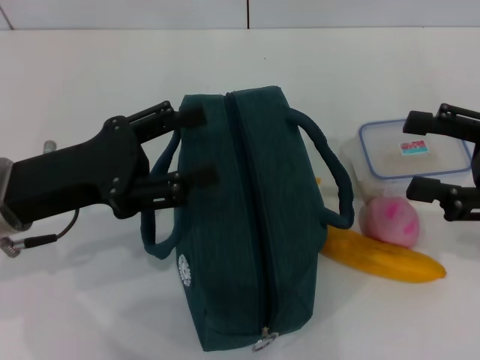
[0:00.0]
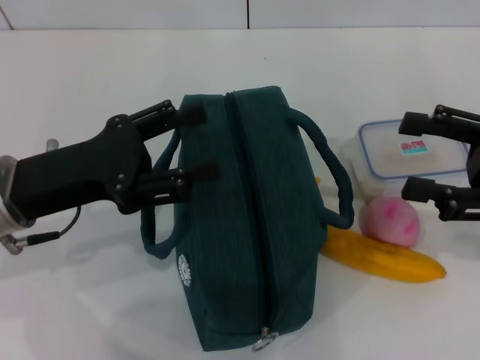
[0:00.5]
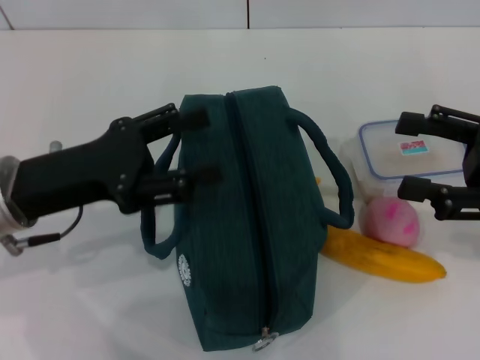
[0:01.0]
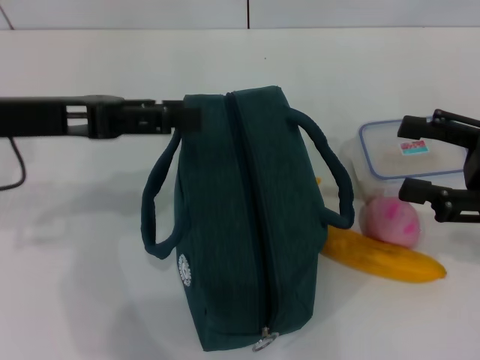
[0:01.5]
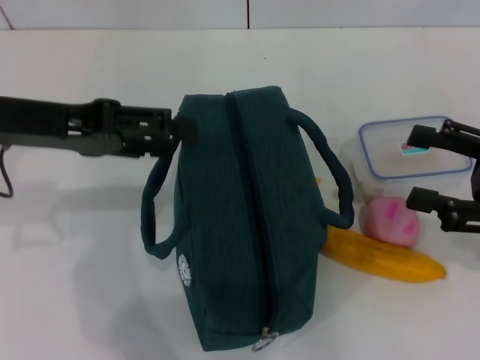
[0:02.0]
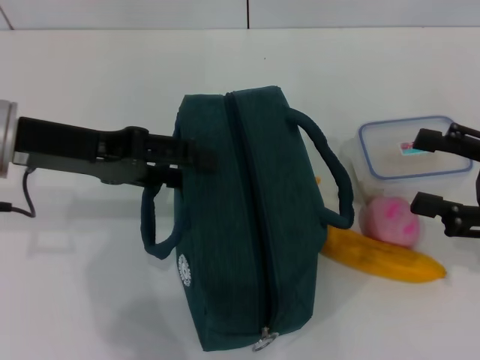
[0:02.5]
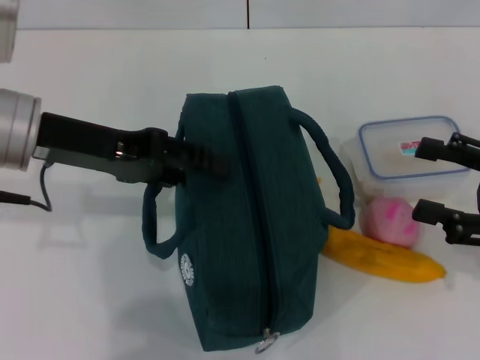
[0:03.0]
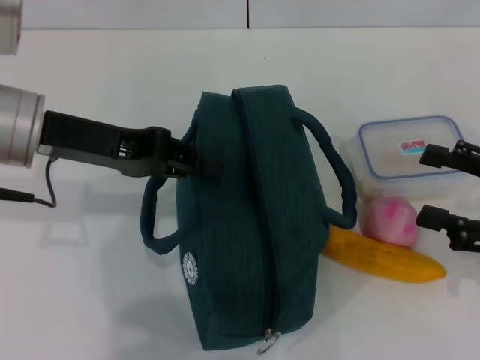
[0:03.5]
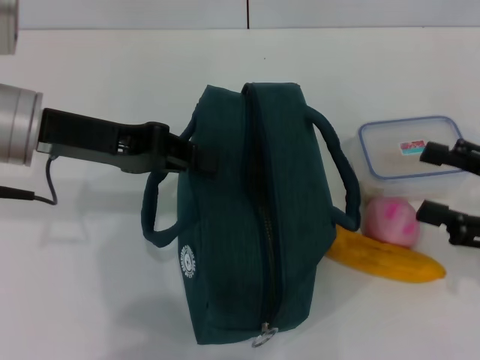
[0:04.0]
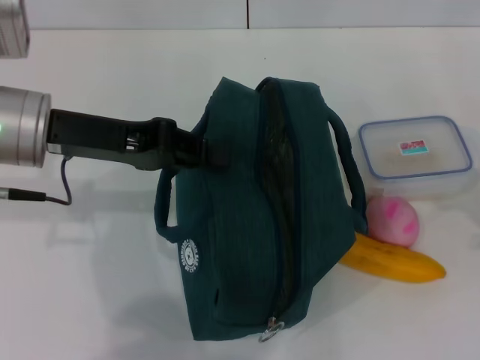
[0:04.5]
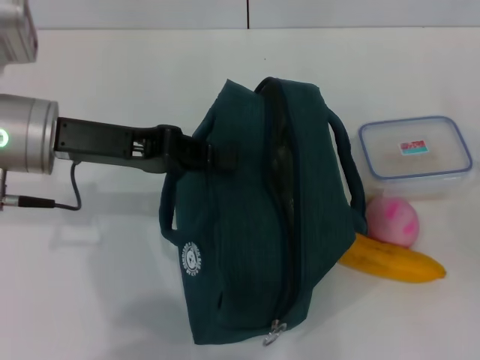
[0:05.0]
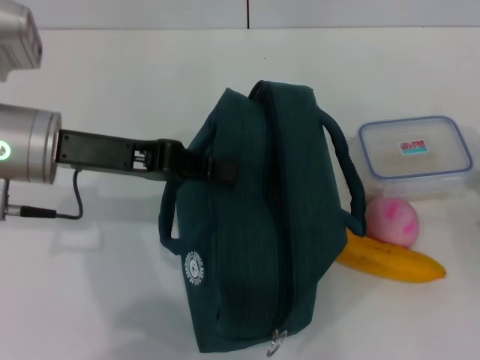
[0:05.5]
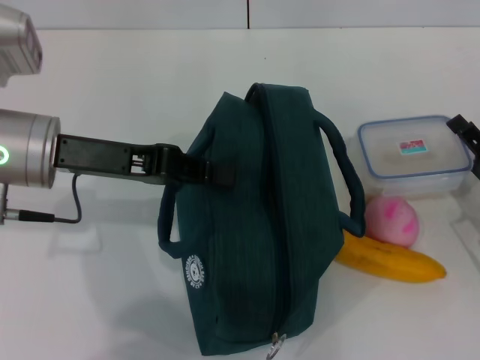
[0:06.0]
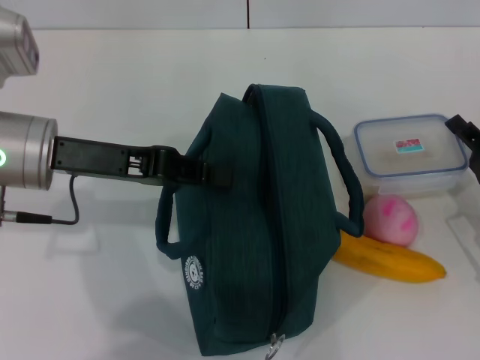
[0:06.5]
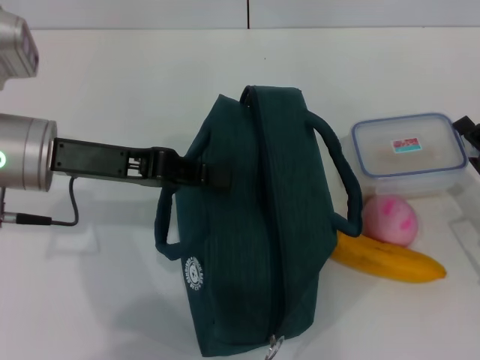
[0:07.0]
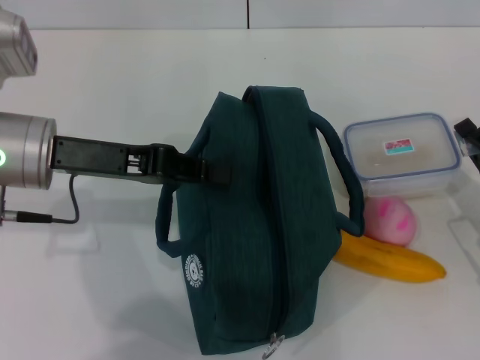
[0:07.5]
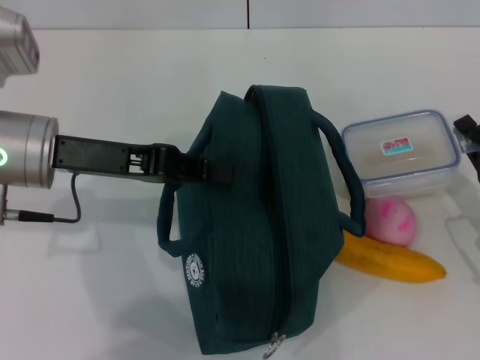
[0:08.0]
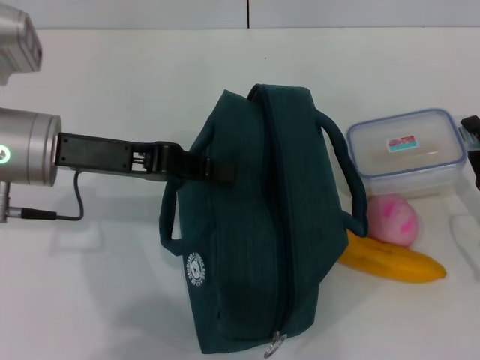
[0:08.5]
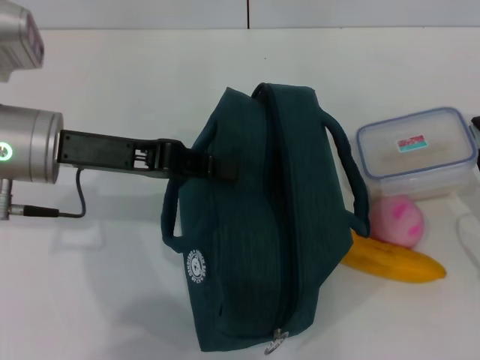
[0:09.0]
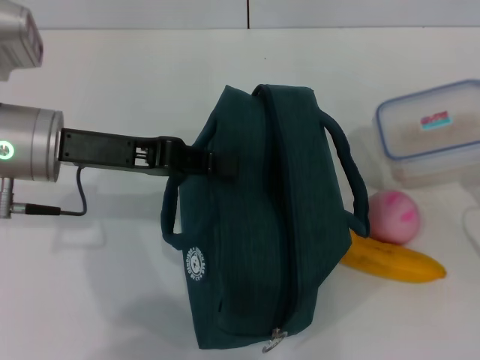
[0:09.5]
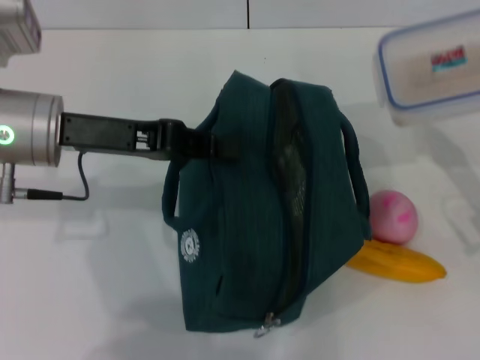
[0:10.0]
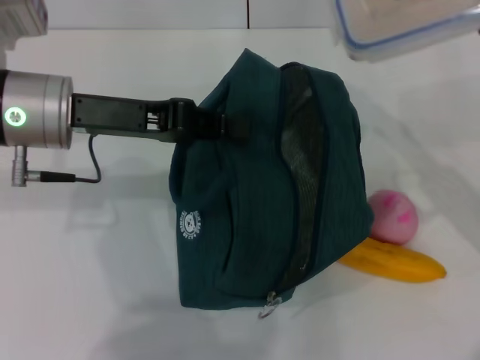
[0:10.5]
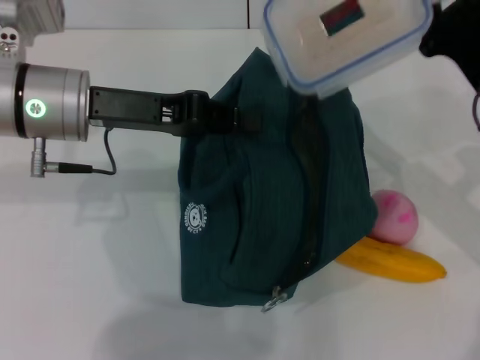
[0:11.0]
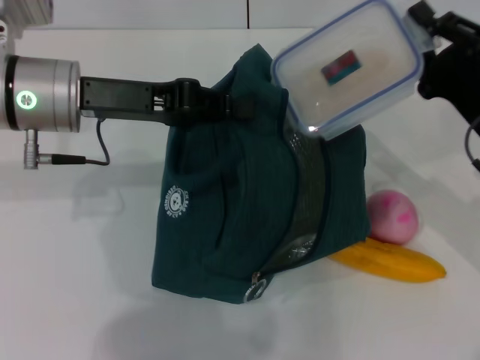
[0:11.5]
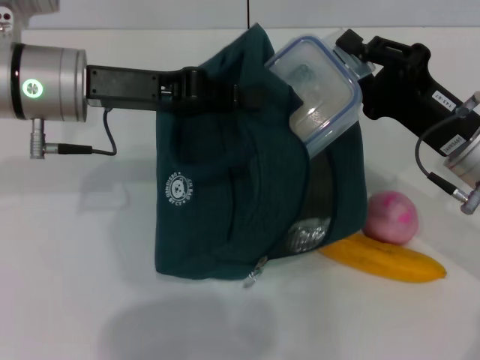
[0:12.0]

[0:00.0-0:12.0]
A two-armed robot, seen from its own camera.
Step, 0:00.0 to 0:03.5: Hold the lunch bag with your left hand.
Step, 0:04.0 to 0:08.5: Pick up the lunch box with your right hand.
0:00.0 to 0:02.0: The left gripper goes roughly 10 cm upward.
0:02.0 to 0:04.0: The left gripper closes.
0:04.0 to 0:06.0: The right gripper goes roughly 10 cm downward.
0:06.0 to 0:08.0: The right gripper closes.
0:08.0 to 0:10.0: The right gripper shifts approximately 5 cm upward.
0:10.0 to 0:12.0: The right gripper shifts roughly 10 cm to the left.

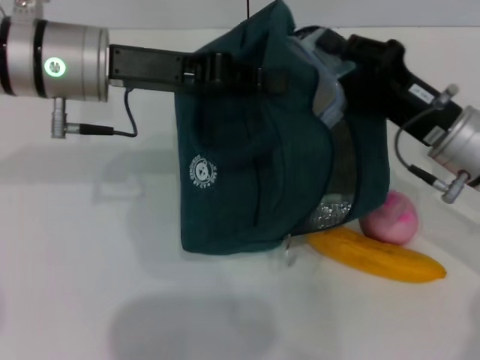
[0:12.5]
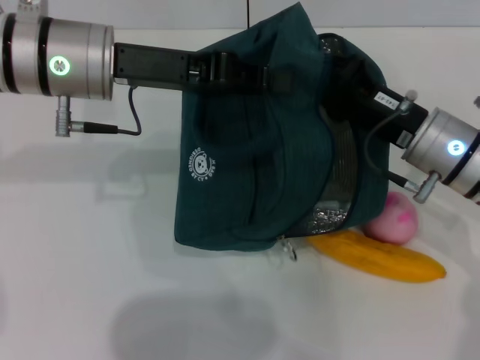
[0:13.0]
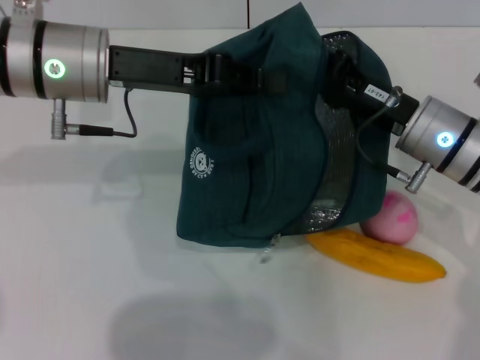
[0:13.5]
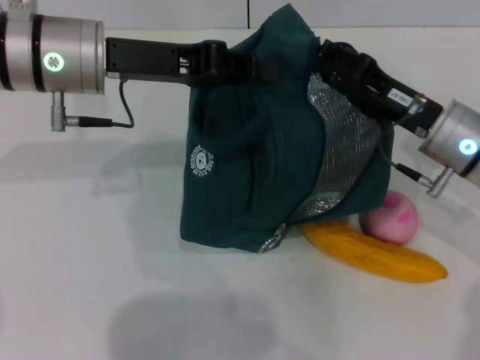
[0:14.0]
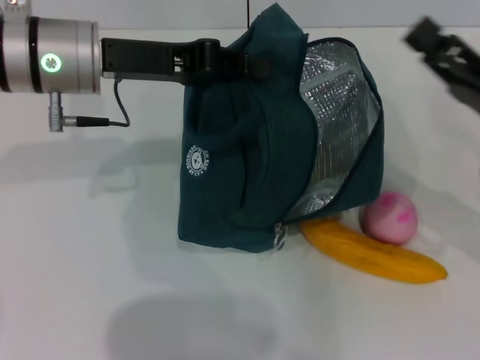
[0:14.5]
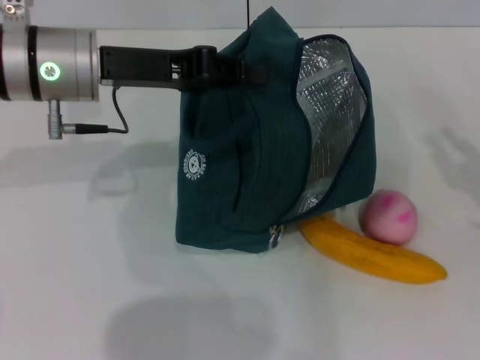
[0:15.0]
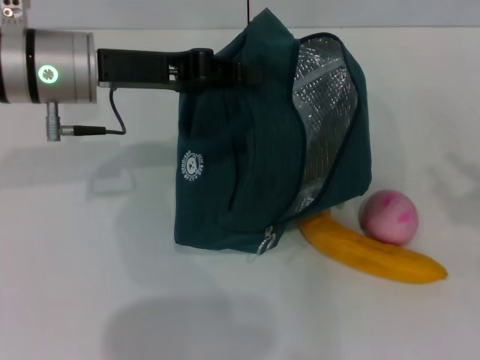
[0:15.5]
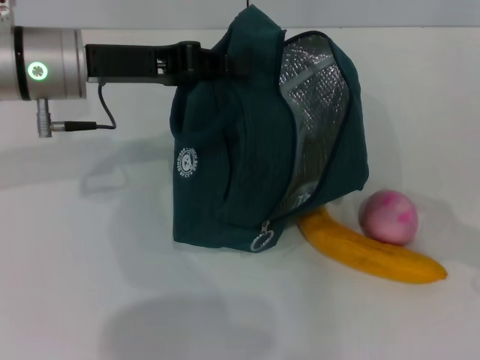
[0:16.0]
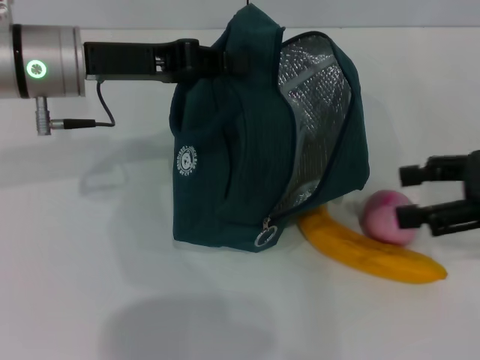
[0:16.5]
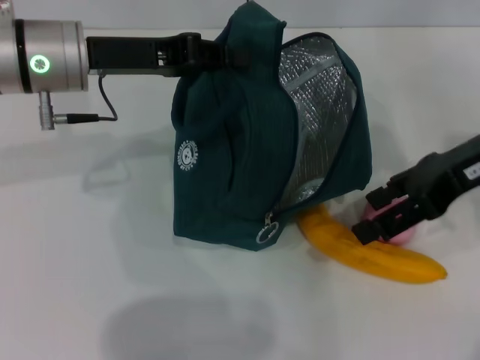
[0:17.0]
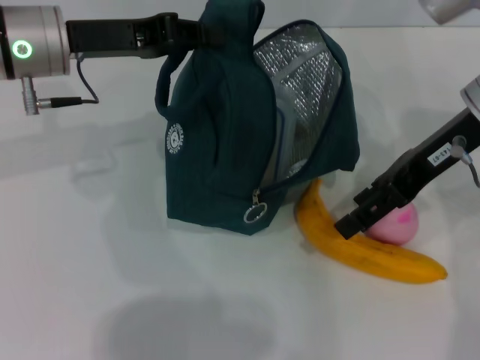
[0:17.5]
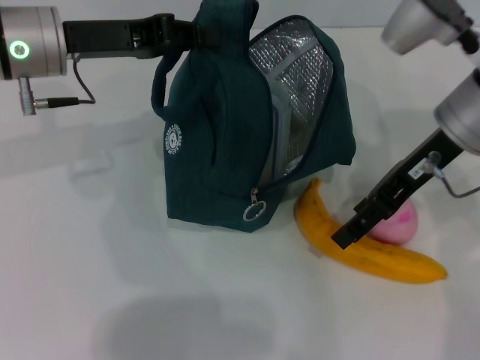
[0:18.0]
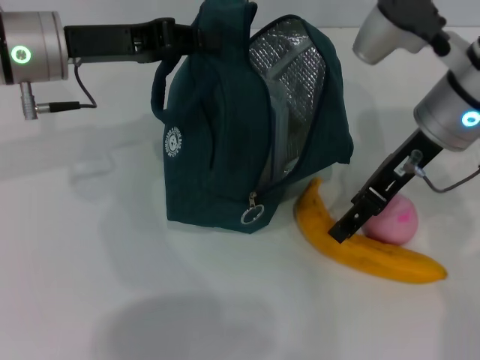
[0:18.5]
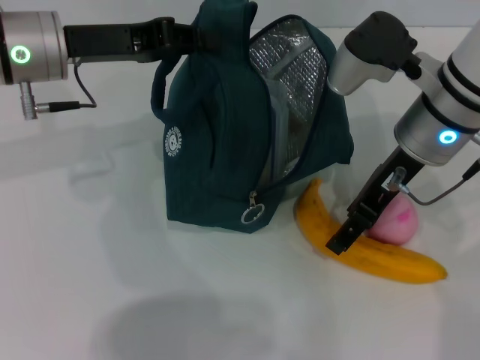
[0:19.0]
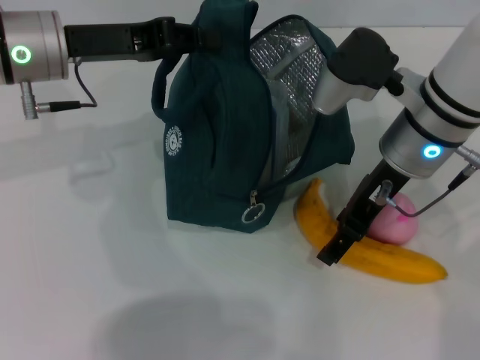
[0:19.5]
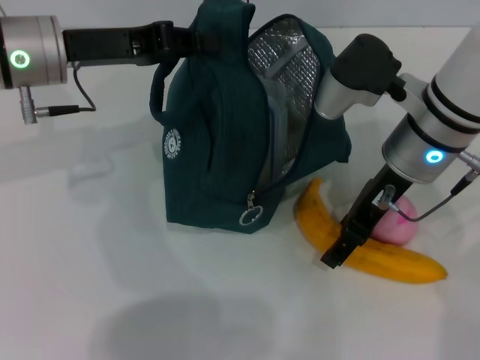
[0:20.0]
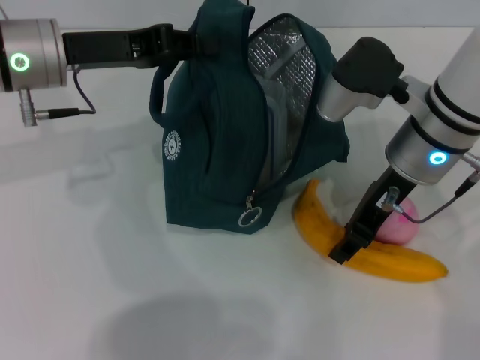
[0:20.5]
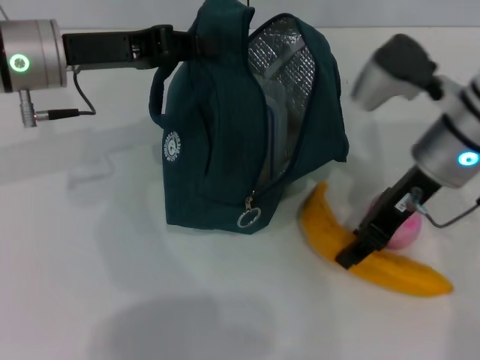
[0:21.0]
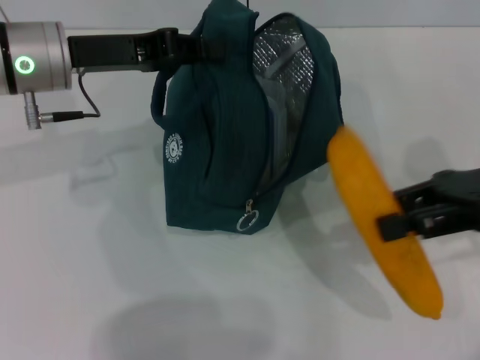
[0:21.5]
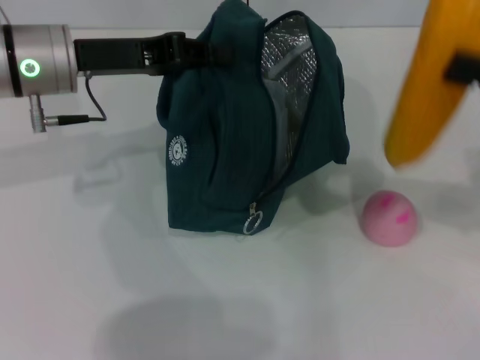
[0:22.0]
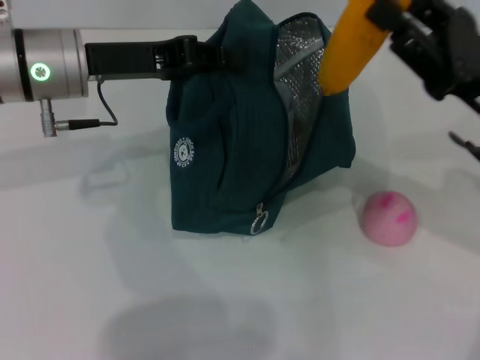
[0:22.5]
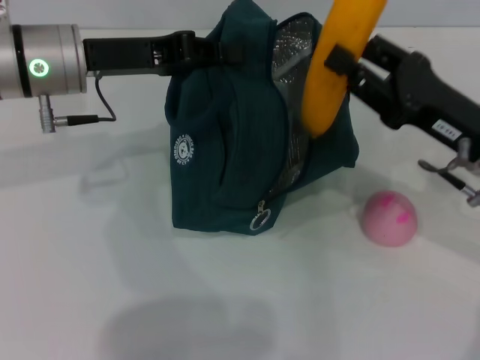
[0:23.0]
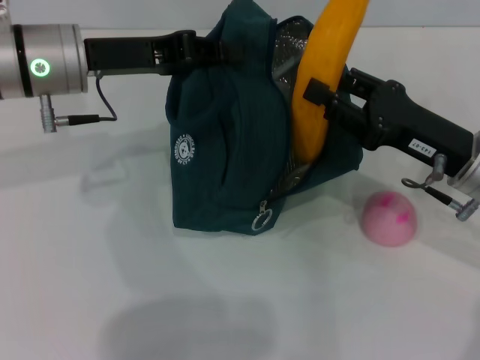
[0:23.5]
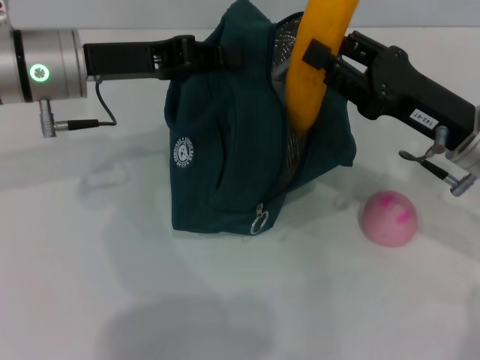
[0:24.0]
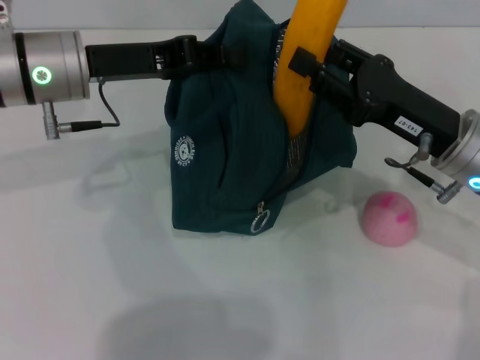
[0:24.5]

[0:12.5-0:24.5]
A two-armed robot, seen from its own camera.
Step, 0:14.0 to 0:20.5: Take the banana with your right hand.
0:12.5 to 0:14.5: The right gripper travels to the right by approximately 5 cm, and opens its fingers.
0:14.5 to 0:16.5: The right gripper shifts approximately 10 cm upward.
0:16.5 to 0:18.5: The right gripper is displaced to the left and forward by about 15 cm.
0:18.5 to 0:20.5: The grippers stay close to where they were, moving slightly.
0:20.5 to 0:22.5: The right gripper is displaced to the right and backward by approximately 10 cm.
0:22.5 to 0:24.5: The grippers move only a little.

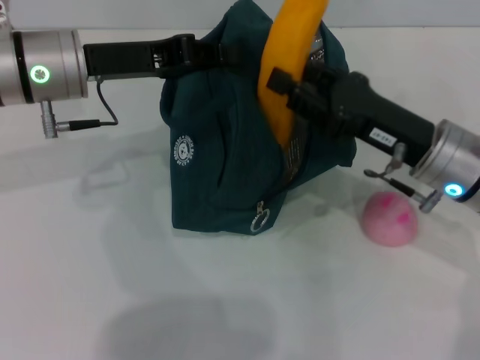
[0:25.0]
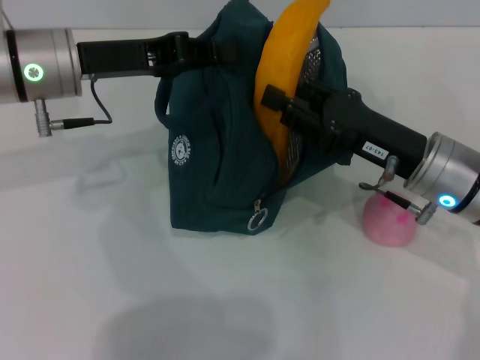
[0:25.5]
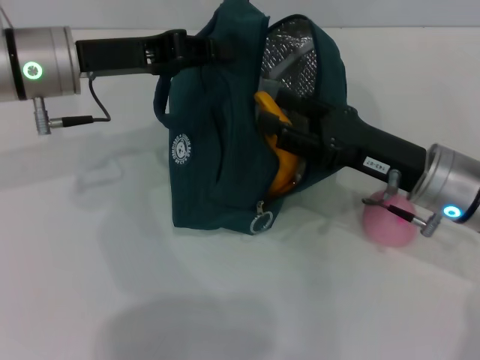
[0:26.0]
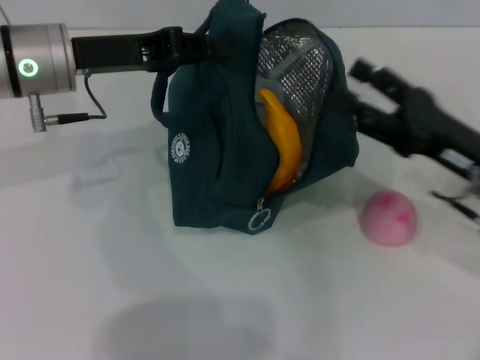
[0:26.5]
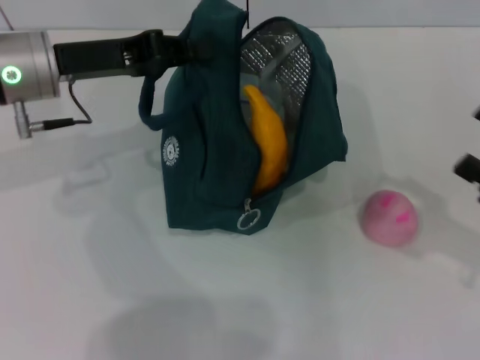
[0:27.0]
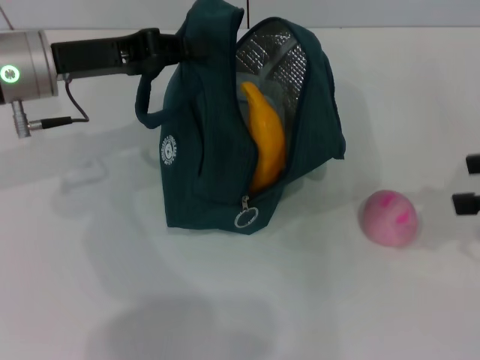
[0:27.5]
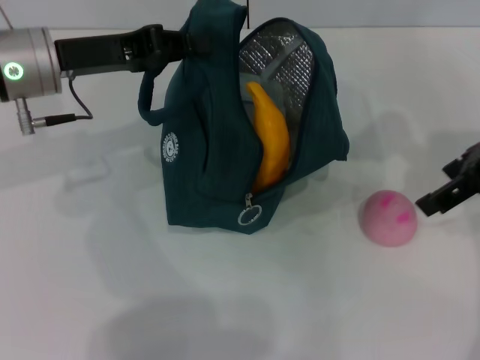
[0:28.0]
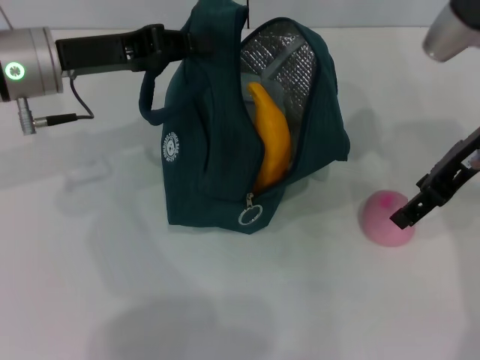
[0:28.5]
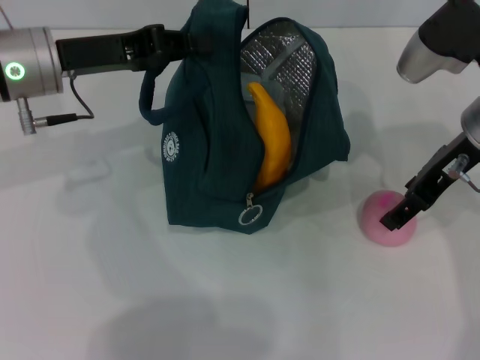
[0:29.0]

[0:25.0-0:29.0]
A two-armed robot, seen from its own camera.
0:25.0 to 0:27.0: The right gripper heads to the right and backward, covering some 15 cm, and opens.
0:27.0 to 0:29.0: The right gripper moves forward, to the left and upward, some 20 cm.
